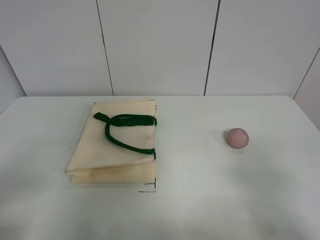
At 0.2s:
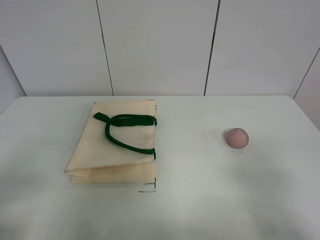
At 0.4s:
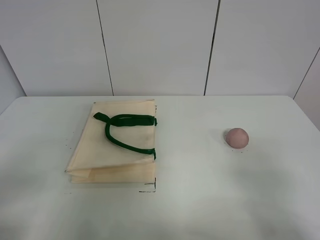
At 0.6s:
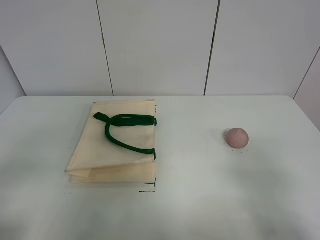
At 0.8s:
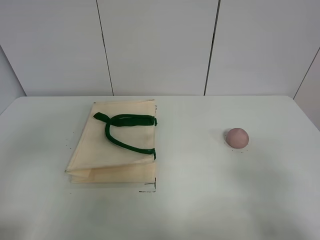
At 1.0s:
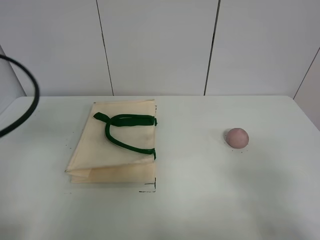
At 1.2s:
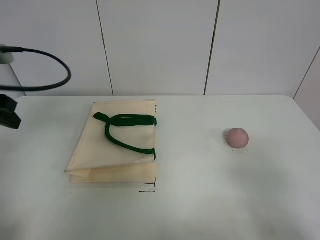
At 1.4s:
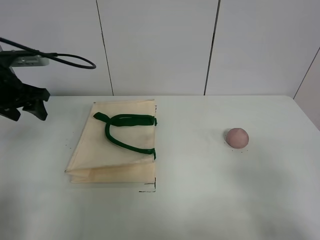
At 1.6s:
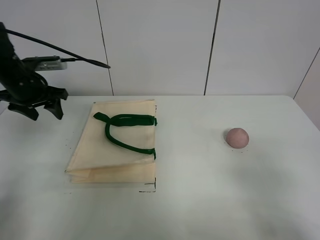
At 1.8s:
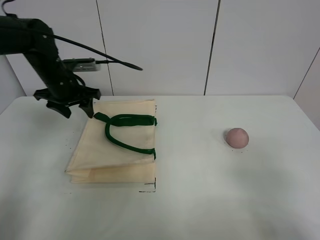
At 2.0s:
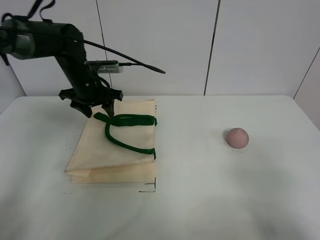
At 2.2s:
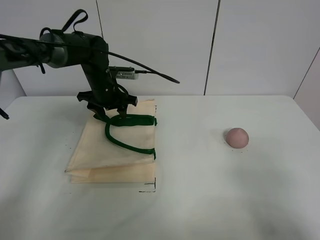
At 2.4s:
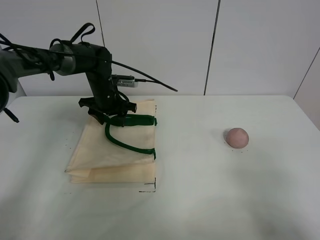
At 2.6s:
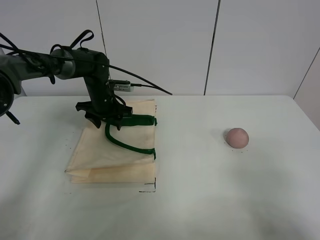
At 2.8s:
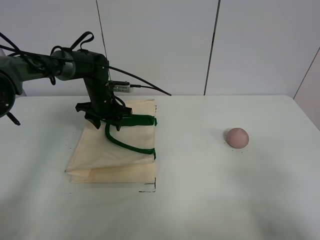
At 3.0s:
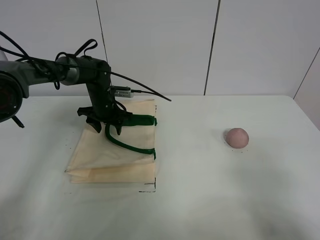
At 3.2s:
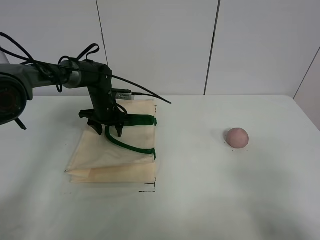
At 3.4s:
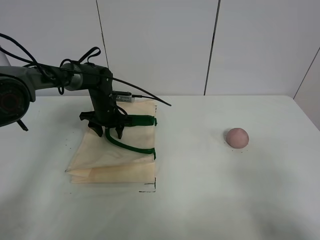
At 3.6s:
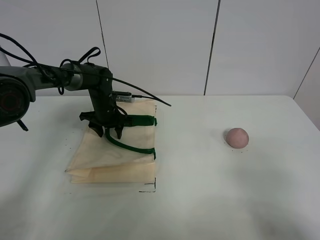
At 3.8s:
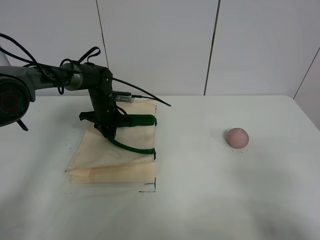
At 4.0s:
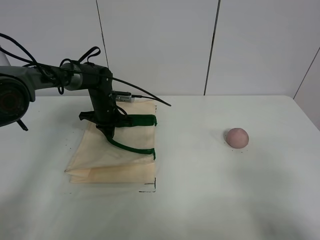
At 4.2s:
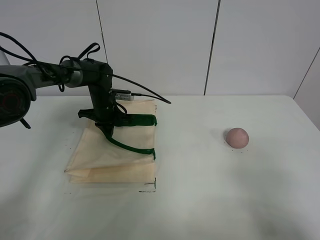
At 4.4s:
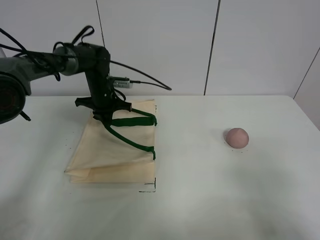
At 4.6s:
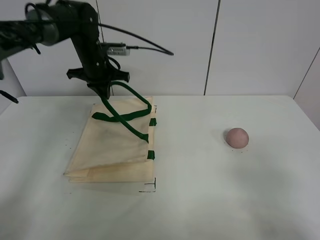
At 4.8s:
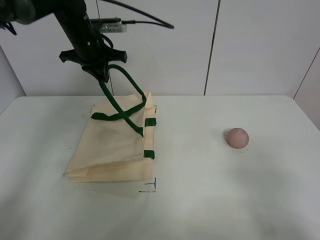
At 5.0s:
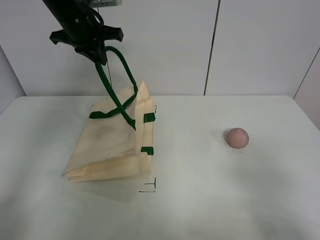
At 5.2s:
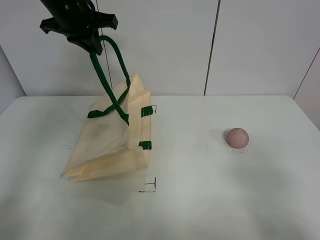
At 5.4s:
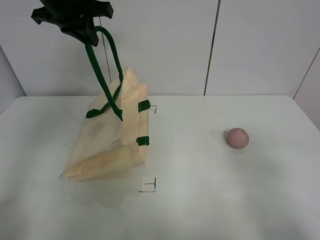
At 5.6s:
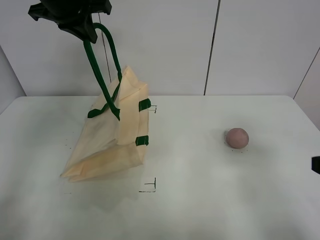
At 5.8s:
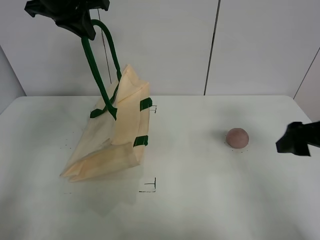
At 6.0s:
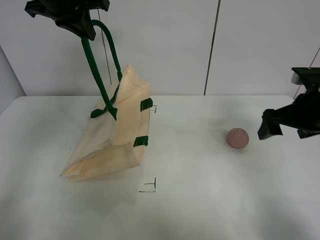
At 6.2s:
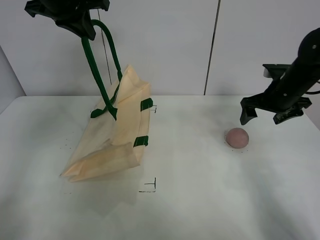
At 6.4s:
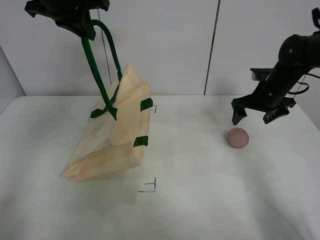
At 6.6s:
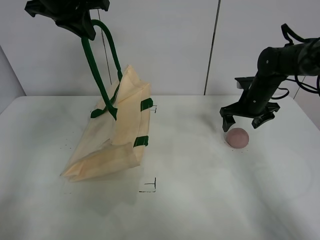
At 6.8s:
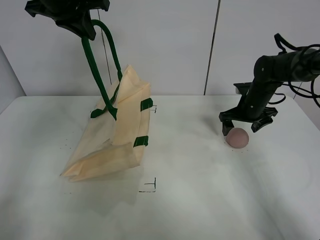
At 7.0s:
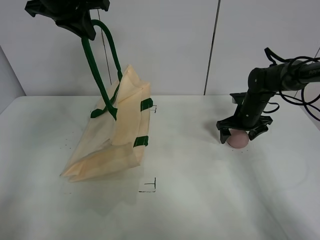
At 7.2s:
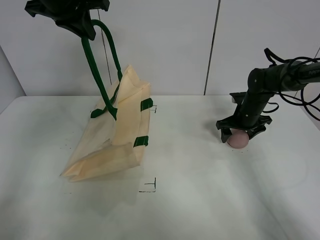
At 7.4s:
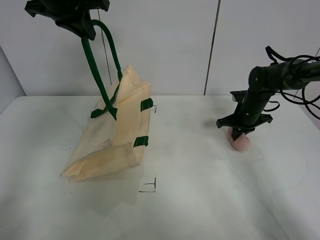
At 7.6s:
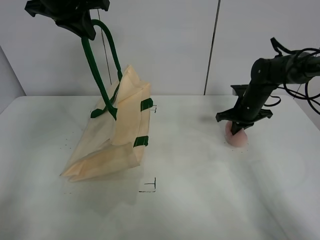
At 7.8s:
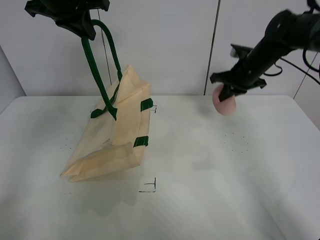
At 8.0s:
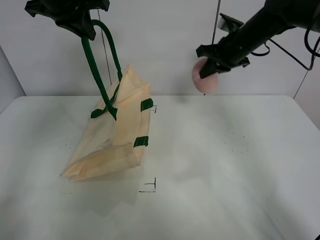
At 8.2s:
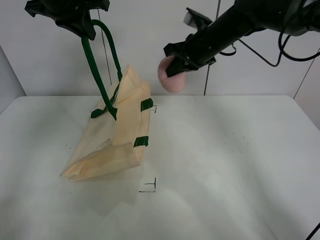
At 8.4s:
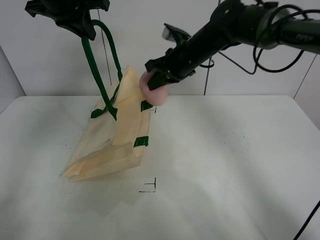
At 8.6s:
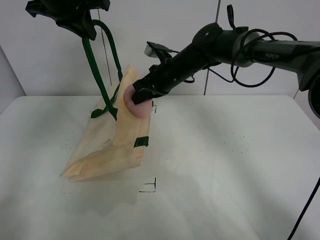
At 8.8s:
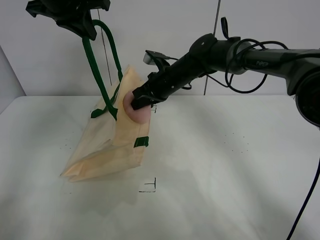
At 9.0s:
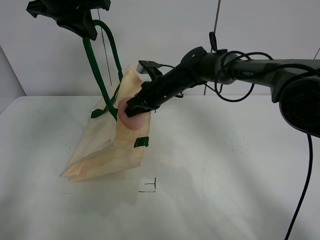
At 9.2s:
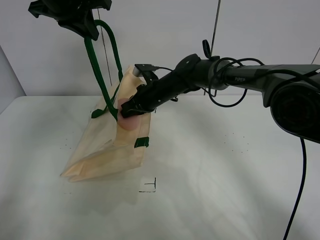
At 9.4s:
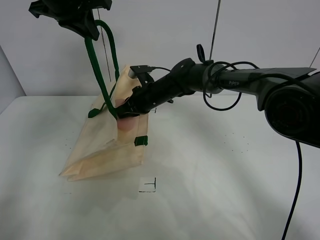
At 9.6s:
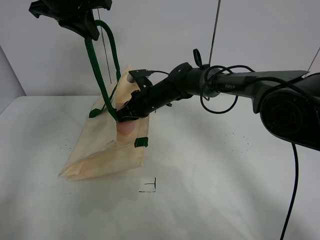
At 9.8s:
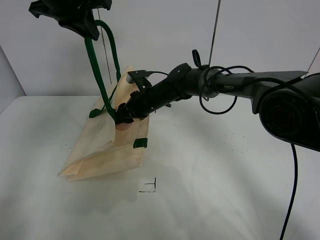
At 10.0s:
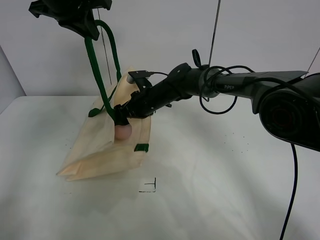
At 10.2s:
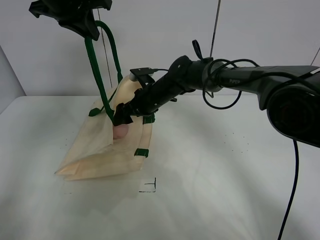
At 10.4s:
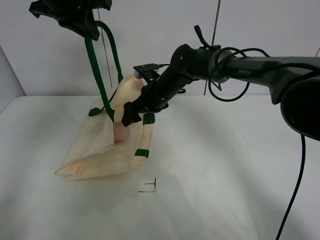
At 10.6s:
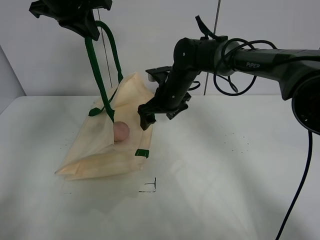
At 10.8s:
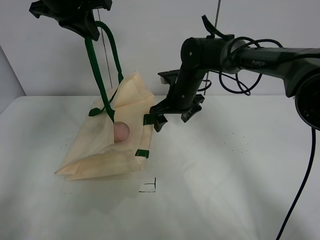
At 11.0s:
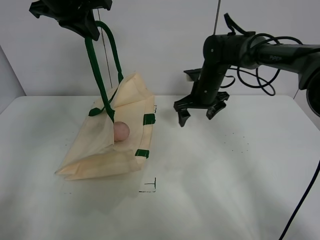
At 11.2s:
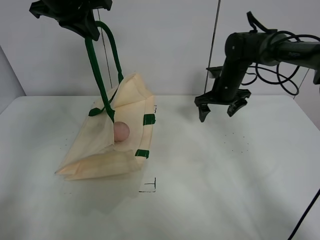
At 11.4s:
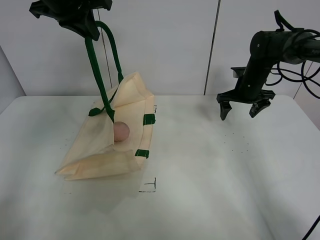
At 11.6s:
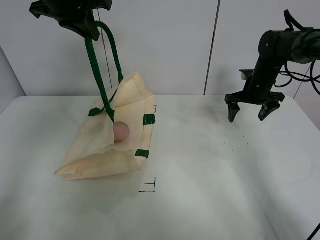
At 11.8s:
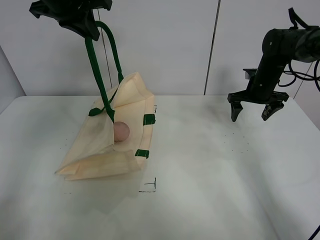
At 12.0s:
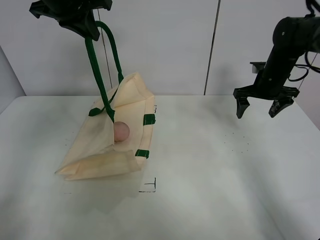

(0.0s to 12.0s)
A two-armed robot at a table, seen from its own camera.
Task of the whole recording: open the white linen bag and put the peach in the bag.
Step, 0.0s - 5.4s: Lift the handbag with left gripper.
Step, 5.6s - 7.6s: Grasp the peach with right gripper.
Step, 7.8s - 10.2s: Place the peach in the handbag with right gripper.
0.0s - 1.6s: The left gripper travels forward by approximately 35 cm.
1.6s - 3.0s: The left gripper moves to the right, downward and forward, roughly 20 cm.
3.0s - 4.4s: The left gripper closes its fingers.
4.4s - 6.0s: The right gripper shifts approximately 30 cm forward, while the left gripper goes some 25 cm upward.
6.0s - 7.6s: The right gripper shifts approximately 20 cm forward and downward, and closes.
7.6s - 9.0s: The right gripper is displaced to the left by about 25 cm.
9.0s - 10.4s: The right gripper opens.
10.4s - 12.0s: The right gripper is displaced to the right by roughly 25 cm.

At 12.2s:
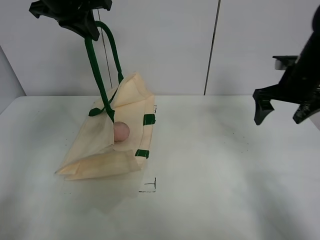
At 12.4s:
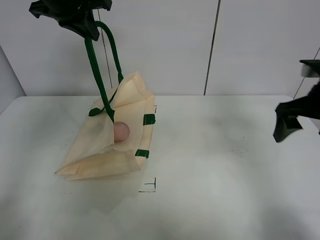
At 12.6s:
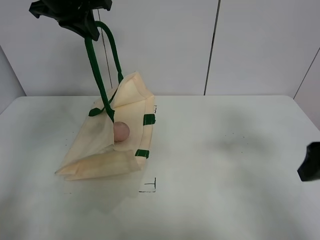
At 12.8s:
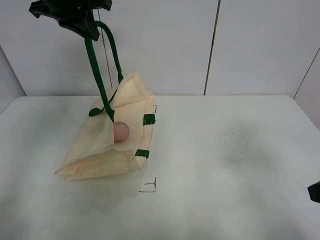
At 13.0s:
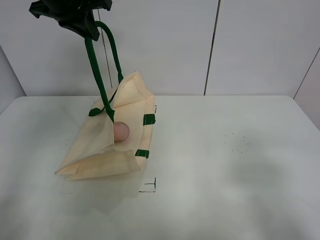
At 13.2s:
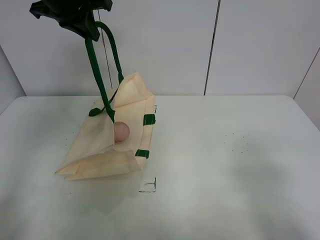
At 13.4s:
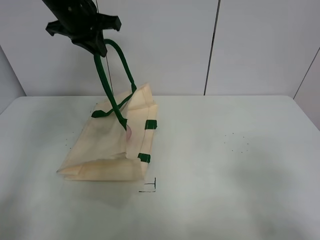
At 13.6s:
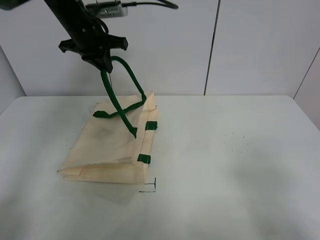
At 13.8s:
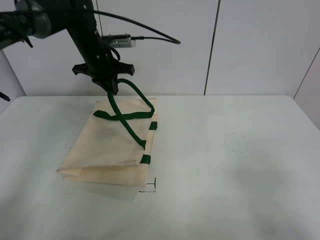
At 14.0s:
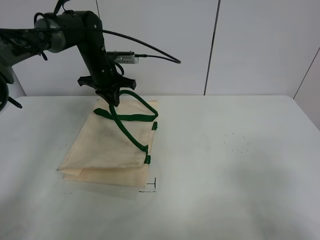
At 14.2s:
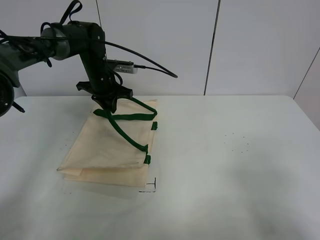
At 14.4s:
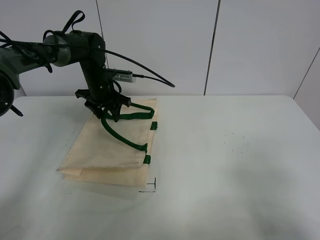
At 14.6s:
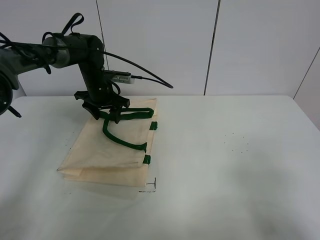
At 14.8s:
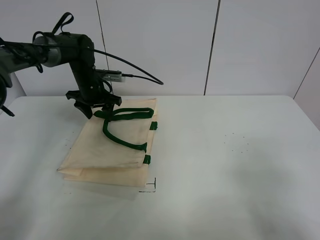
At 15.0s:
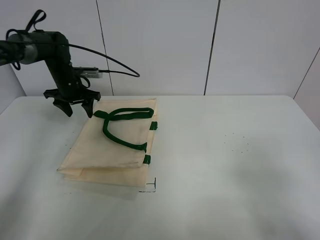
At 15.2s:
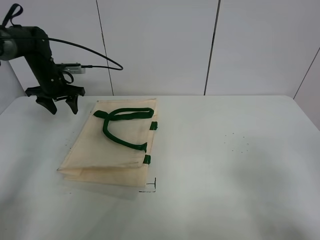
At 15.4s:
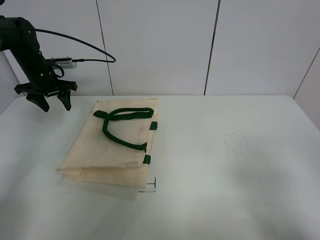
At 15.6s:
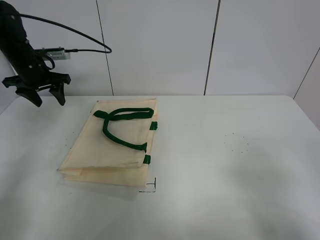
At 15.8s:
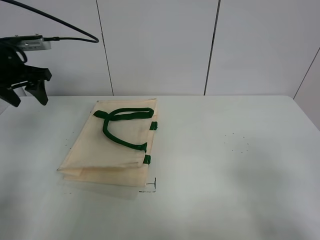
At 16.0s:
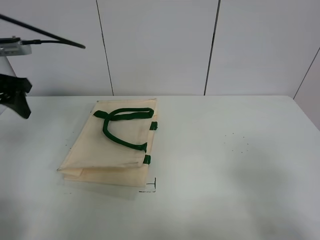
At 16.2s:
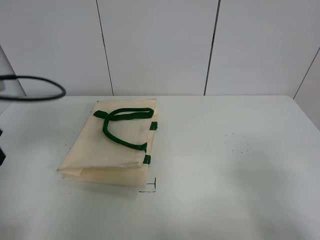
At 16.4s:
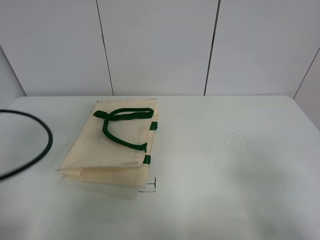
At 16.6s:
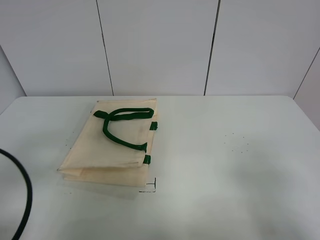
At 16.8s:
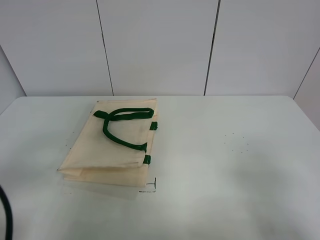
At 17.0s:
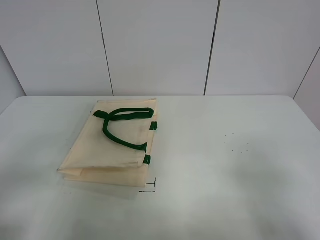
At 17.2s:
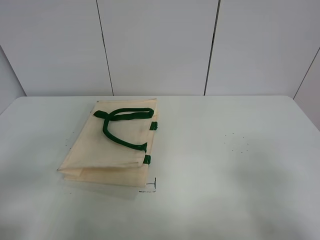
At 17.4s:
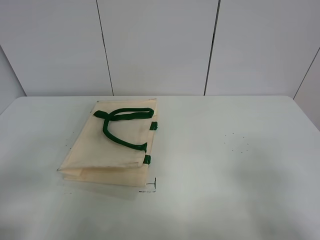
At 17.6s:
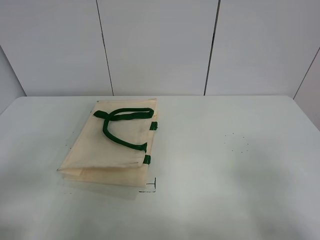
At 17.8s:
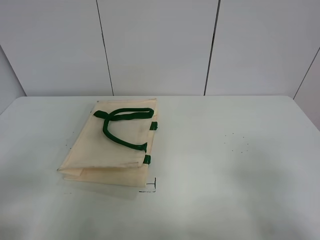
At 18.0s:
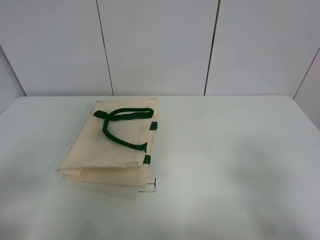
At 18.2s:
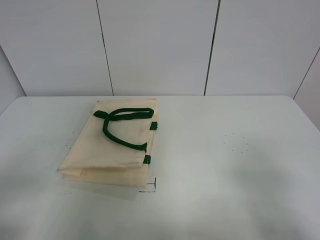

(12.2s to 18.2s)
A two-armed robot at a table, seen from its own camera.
Task of the whole recording: open the white linen bag and put the peach in the bag.
Step, 12.2s - 14.8s: Put down the handbag with left gripper.
12.2s - 13.8s: The right gripper heads backward, covering some 35 cm; the left gripper heads downward and forward, covering approximately 20 cm.
13.8s - 15.2s: The left gripper is displaced to the left by about 15 cm, and opens.
15.2s - 16.6s: The left gripper moves backward, some 40 cm.
16.6s - 18.2s: The left gripper shifts about 5 cm backward.
